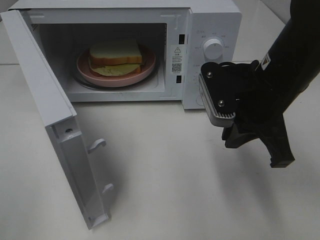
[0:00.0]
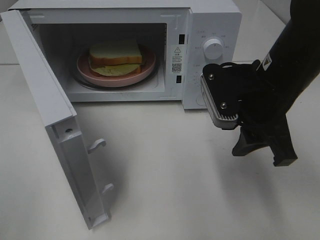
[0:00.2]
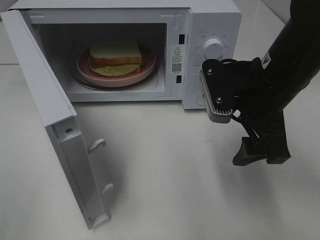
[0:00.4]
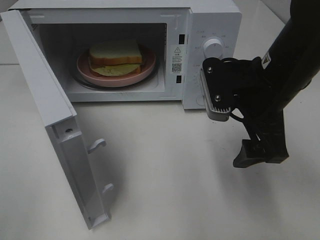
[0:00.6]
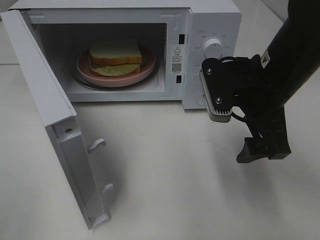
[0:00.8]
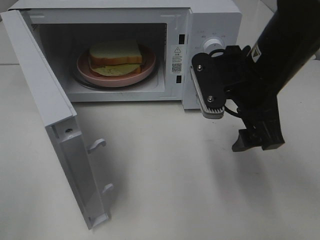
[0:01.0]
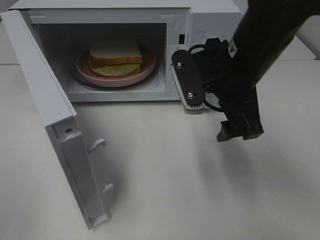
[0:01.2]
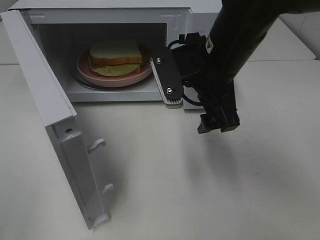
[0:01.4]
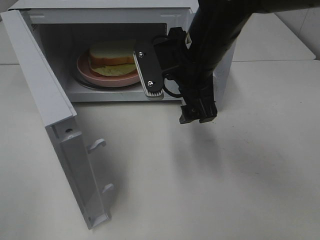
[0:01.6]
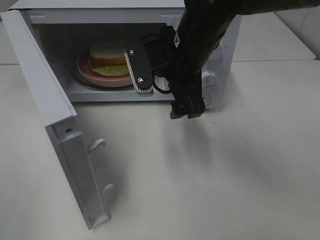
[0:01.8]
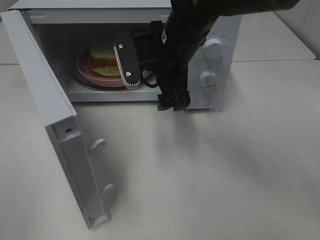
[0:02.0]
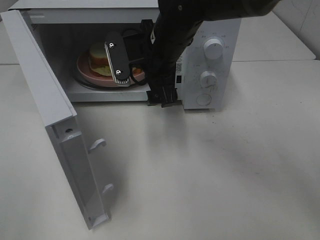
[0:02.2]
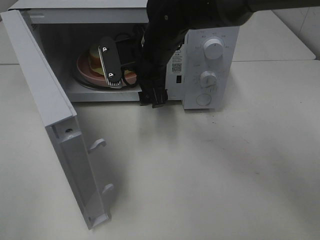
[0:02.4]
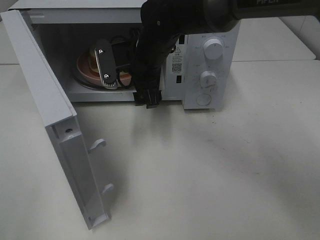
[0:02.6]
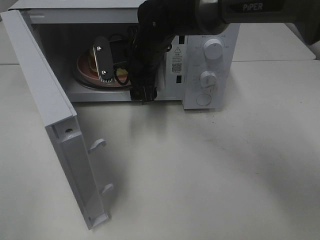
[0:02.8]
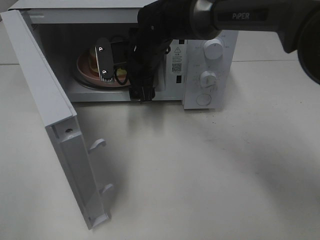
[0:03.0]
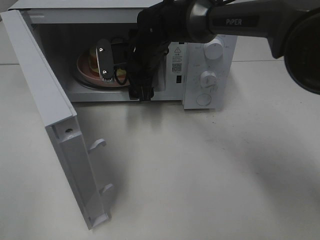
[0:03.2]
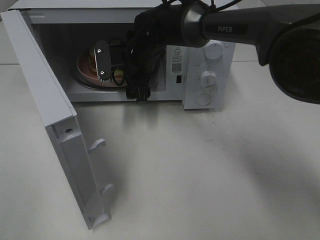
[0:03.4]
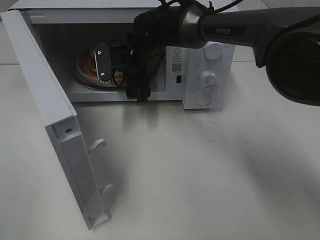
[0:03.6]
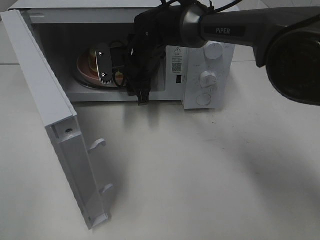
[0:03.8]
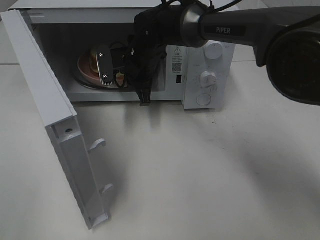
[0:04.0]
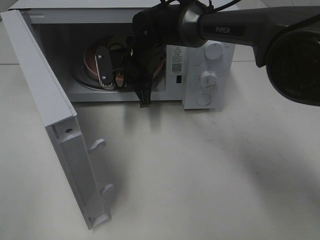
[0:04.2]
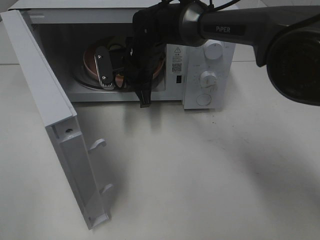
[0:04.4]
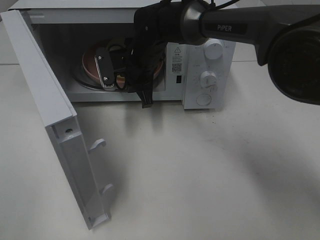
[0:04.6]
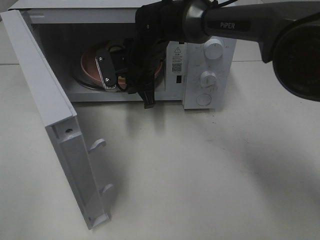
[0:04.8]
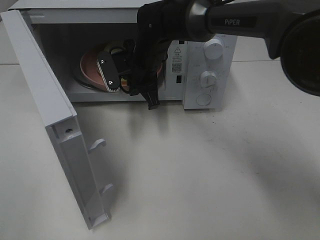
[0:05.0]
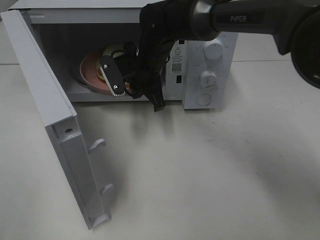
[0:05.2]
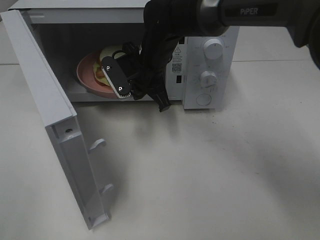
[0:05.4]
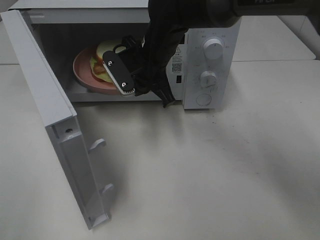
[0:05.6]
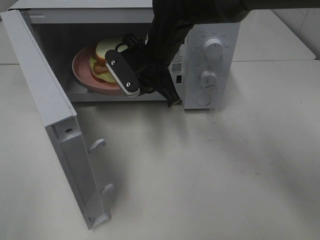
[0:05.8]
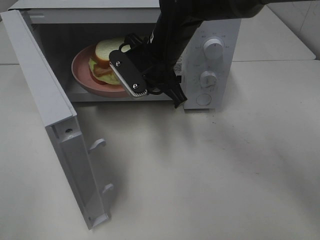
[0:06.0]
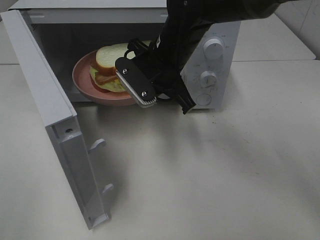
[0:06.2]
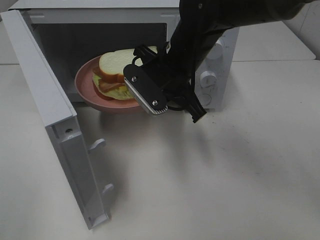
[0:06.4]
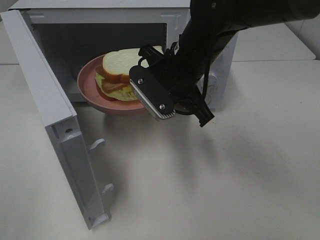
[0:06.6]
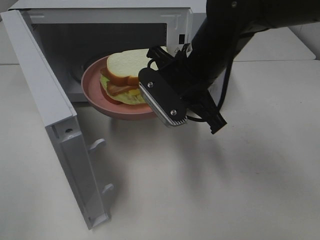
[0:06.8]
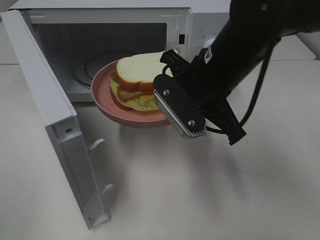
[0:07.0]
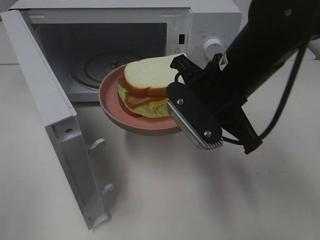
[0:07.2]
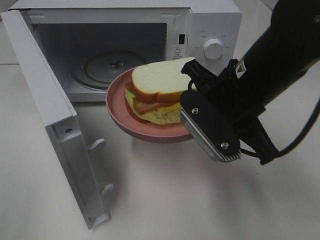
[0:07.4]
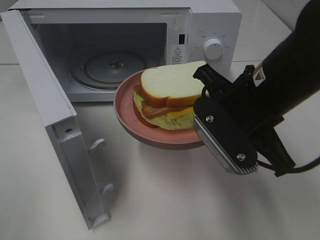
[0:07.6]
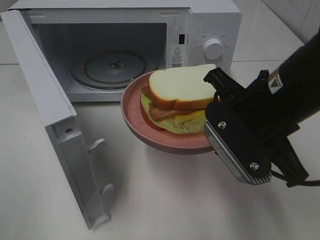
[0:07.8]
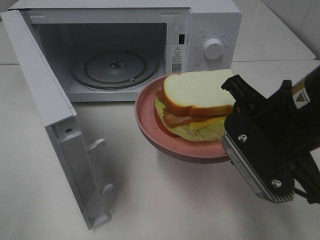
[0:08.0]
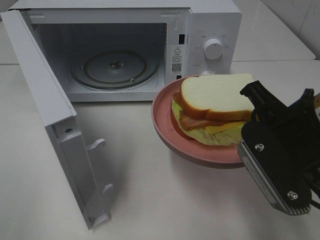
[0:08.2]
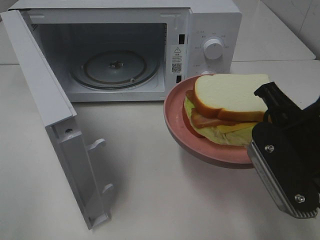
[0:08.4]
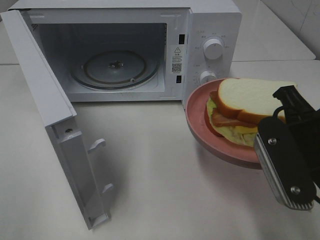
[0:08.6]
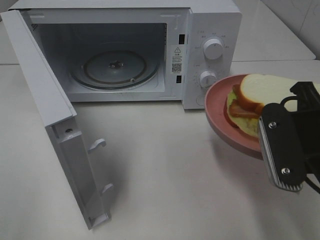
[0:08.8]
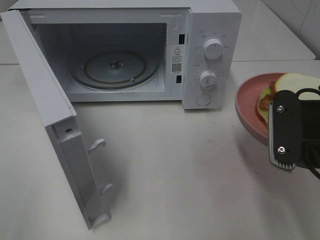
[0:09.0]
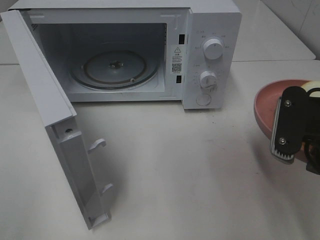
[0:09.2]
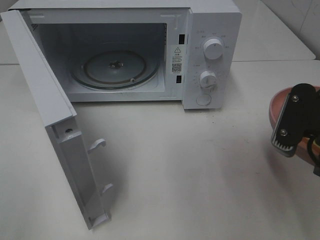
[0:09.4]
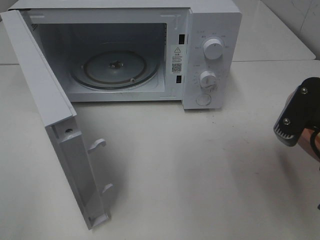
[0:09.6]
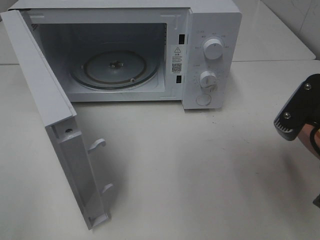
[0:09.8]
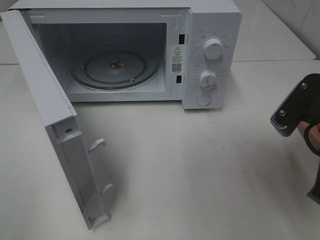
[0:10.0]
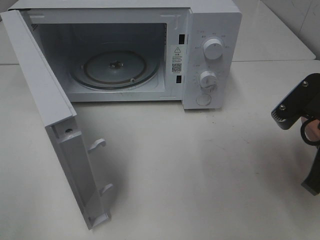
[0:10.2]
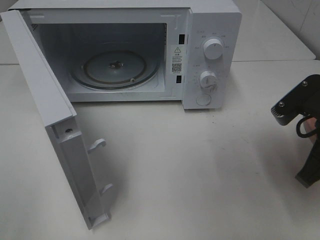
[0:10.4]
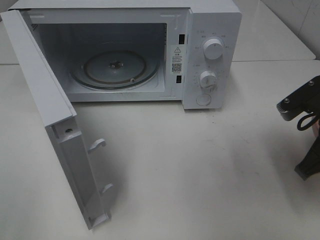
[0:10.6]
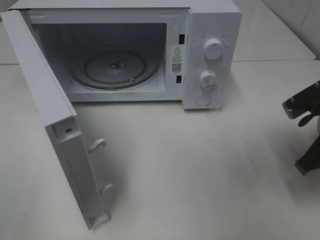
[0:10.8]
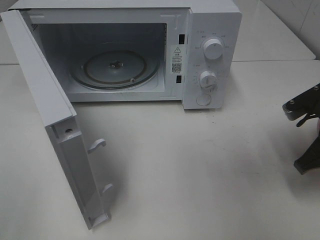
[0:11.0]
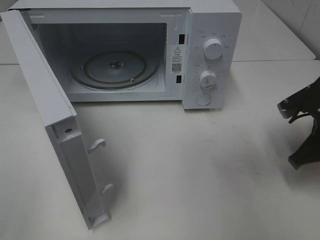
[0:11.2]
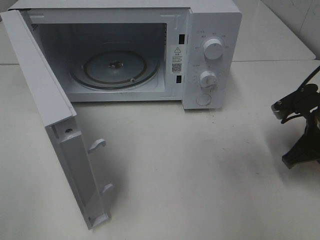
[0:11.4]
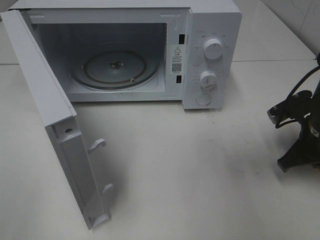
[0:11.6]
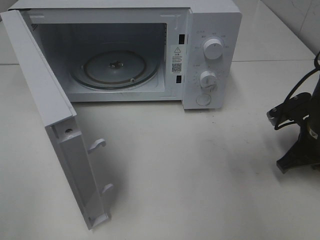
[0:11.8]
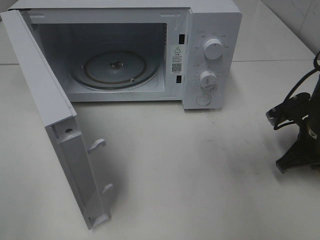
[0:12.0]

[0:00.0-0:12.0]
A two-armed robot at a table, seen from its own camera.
Task of the whole recording: Heat Sandwich.
Step, 0:00.0 to 0:03.8: Right hand: grab the plate with the sandwich.
0:00.0 to 0:01.6: The right gripper moves to the left and forward, approximately 10 cm, and opens its fingers.
0:01.6 to 0:03.0: The right gripper is displaced forward, to the left and downward by about 15 cm.
0:03.0 to 0:04.4: The right gripper closes its fingers.
0:04.4 to 0:06.0: The right gripper moves backward and upward, roughly 10 cm.
0:06.0 to 0:07.6: The right gripper moves backward and to the right, approximately 20 cm.
0:07.6 to 0:09.0: The right gripper shifts approximately 10 cm to the right and backward.
0:09.0 to 0:10.4: The right gripper moves about 5 cm.
0:10.4 to 0:12.0: The right gripper moves downward and forward, about 10 cm.

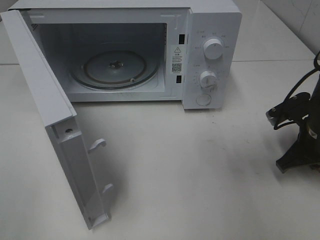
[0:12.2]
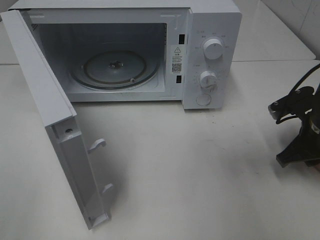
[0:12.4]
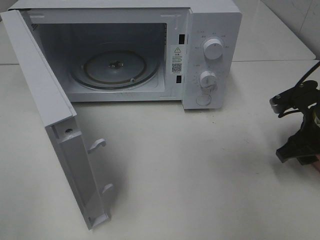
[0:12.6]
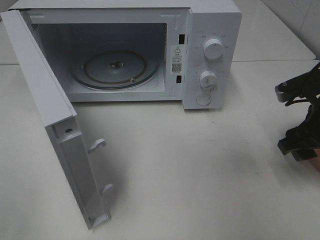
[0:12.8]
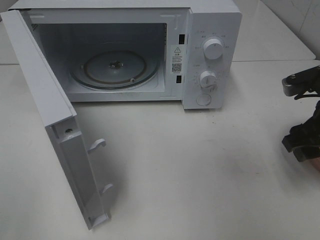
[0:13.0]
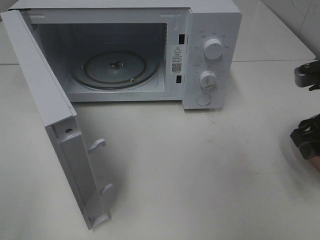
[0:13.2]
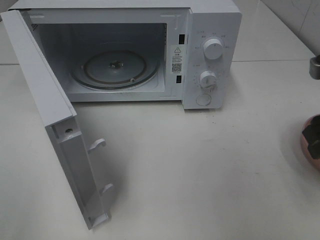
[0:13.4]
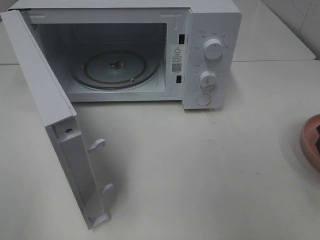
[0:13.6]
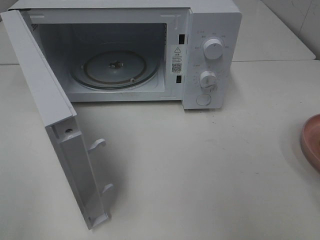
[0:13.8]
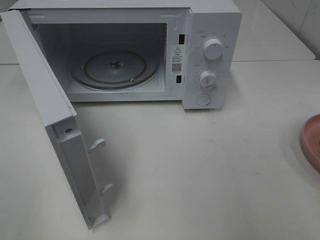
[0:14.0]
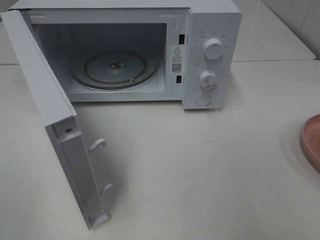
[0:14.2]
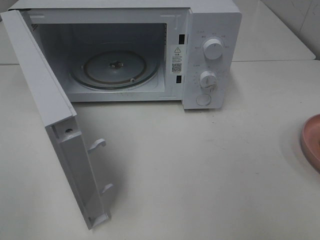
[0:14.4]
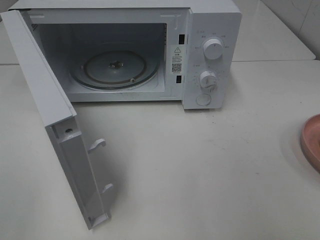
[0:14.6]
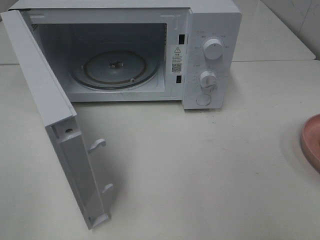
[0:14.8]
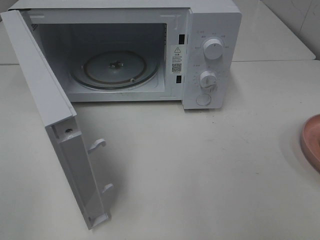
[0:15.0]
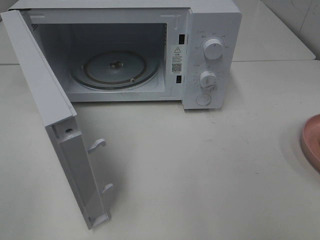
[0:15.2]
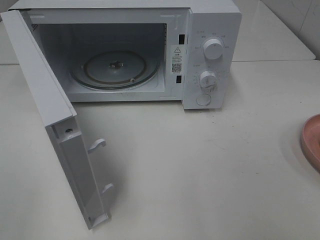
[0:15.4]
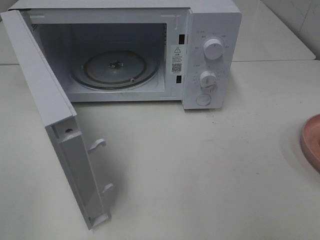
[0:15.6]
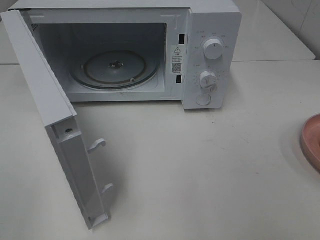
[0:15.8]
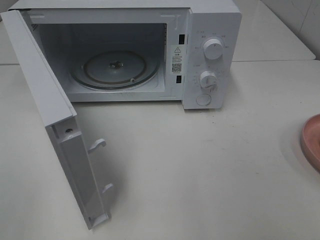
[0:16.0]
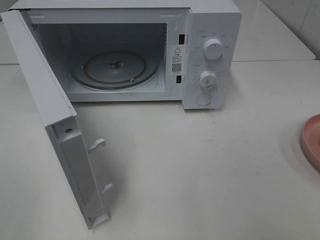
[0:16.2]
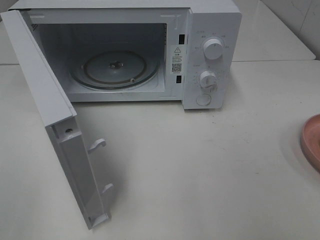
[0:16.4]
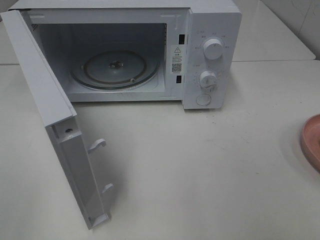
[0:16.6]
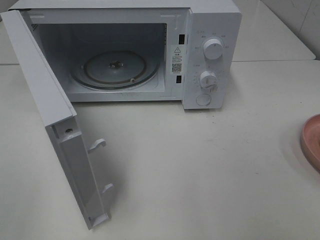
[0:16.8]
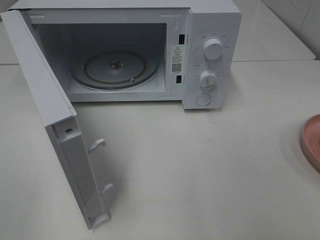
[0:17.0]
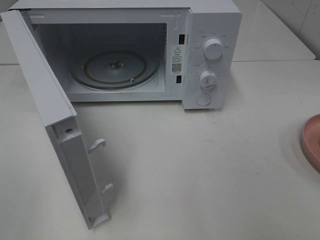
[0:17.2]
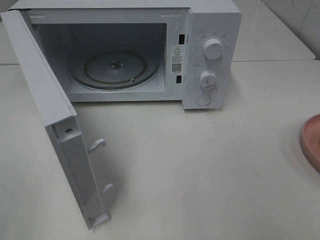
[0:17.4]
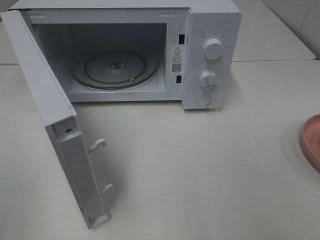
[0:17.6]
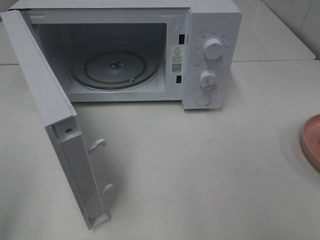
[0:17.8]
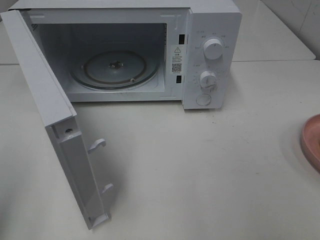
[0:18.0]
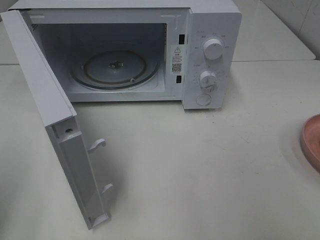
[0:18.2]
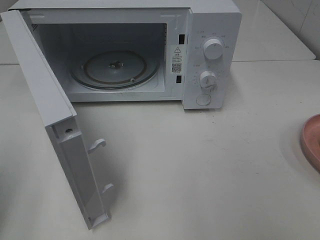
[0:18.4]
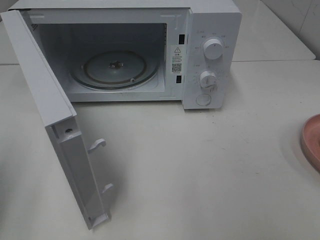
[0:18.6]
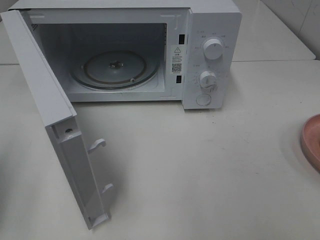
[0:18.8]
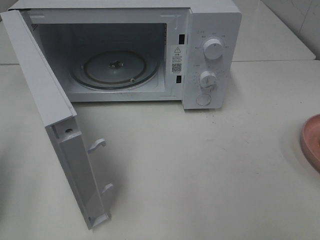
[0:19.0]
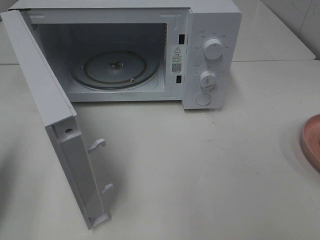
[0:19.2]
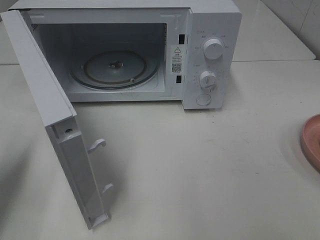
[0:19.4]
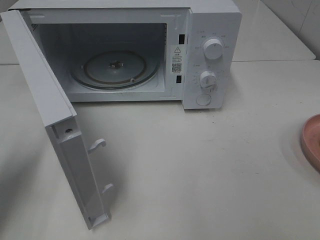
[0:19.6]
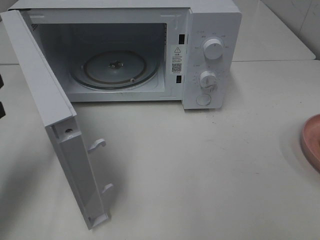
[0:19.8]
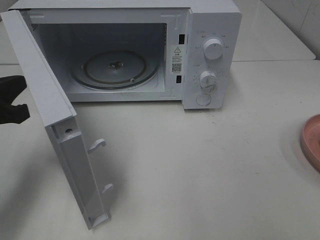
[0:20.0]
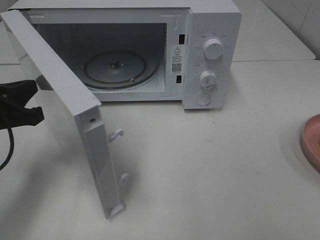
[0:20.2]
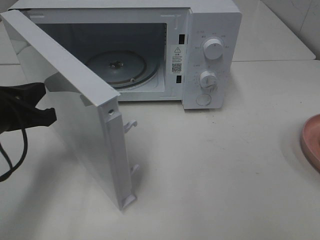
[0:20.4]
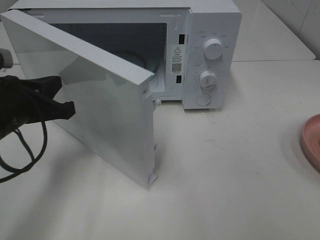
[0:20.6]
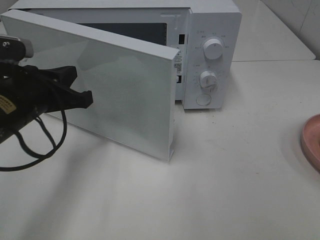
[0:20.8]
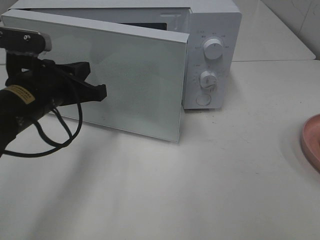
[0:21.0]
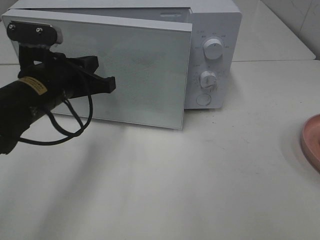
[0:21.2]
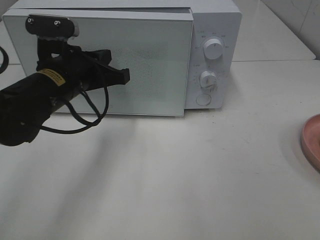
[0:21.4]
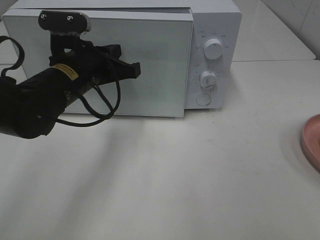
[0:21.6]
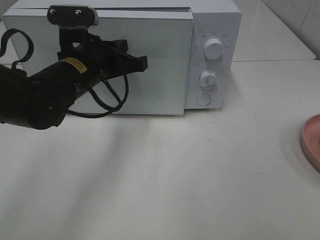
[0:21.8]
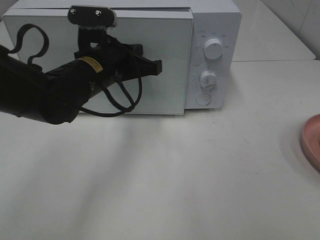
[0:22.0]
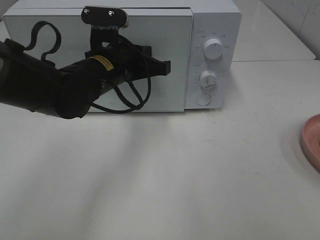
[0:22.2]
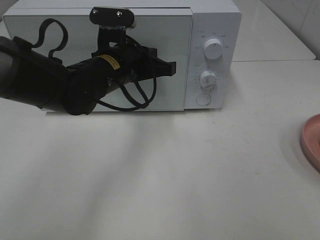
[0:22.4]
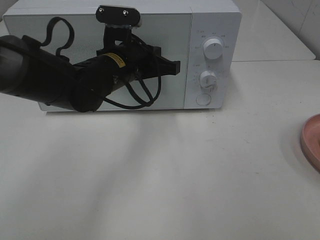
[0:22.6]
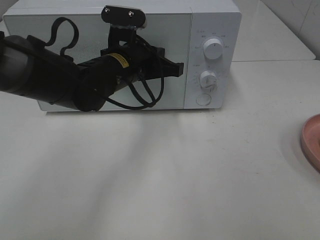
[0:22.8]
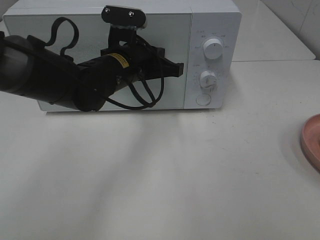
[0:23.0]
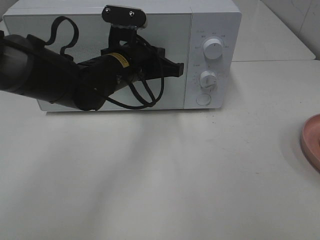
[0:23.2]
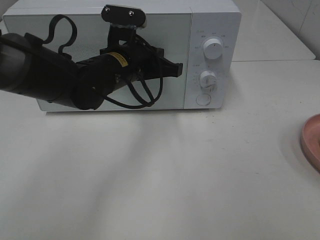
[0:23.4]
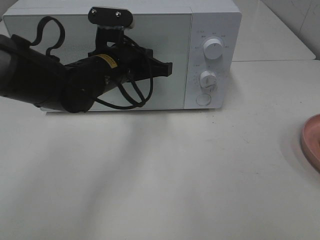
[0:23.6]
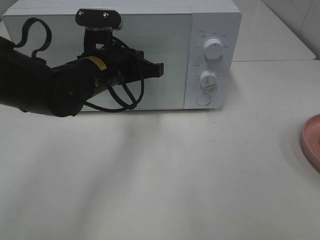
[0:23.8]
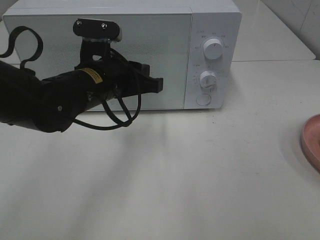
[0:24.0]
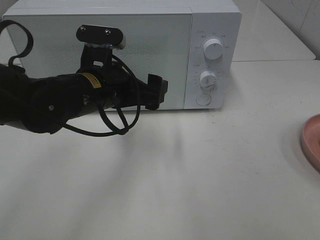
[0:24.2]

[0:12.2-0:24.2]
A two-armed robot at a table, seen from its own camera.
Task of the whole recording: Heat Sandwich.
Step, 0:13.0 to 0:23.4: Left hand: close the microwave door.
0:12.2 to 0:13.8: The right gripper shifts some 20 cm upward and backward, and opens.
0:15.2 to 0:16.6: The two grippers keep their place.
0:18.2 to 0:19.8: The left gripper moves forward and downward, some 15 cm.
0:19.8 to 0:21.2: The left gripper is displaced to the right and forward by roughly 15 cm.
0:21.2 to 0:22.6: The left gripper moves to the right and forward, some 10 cm.
0:22.6 to 0:24.2: The left gripper shifts roughly 5 cm backward, and opens its fingers.
